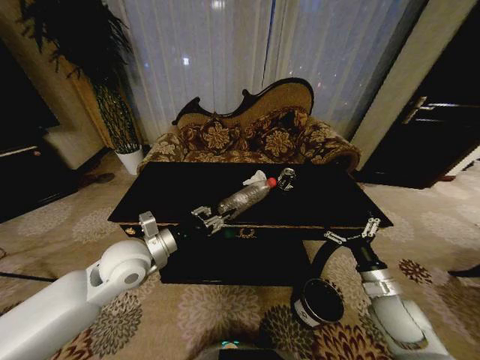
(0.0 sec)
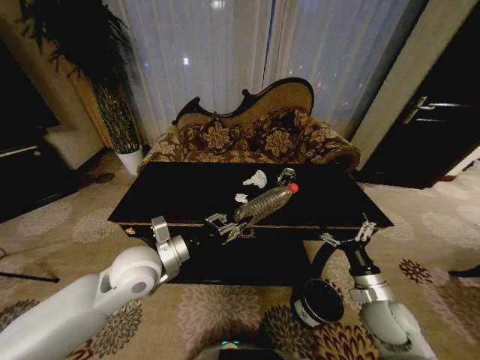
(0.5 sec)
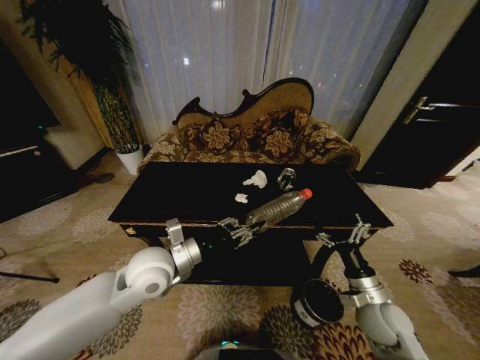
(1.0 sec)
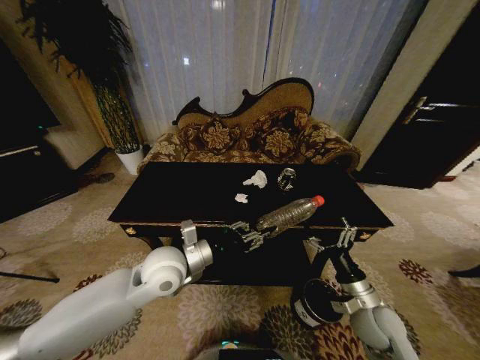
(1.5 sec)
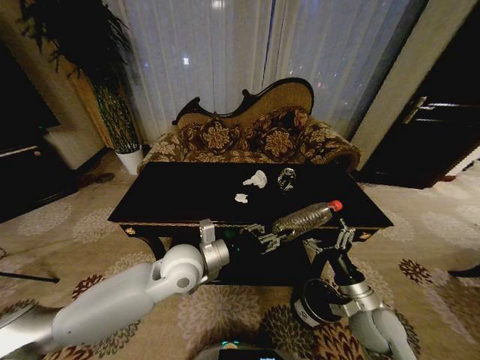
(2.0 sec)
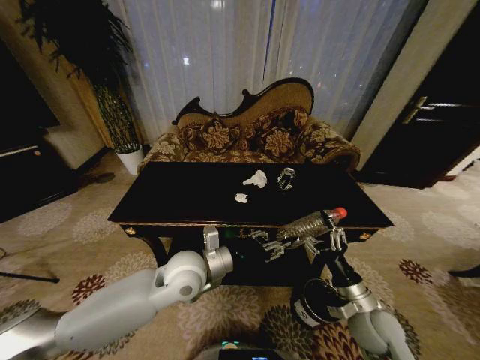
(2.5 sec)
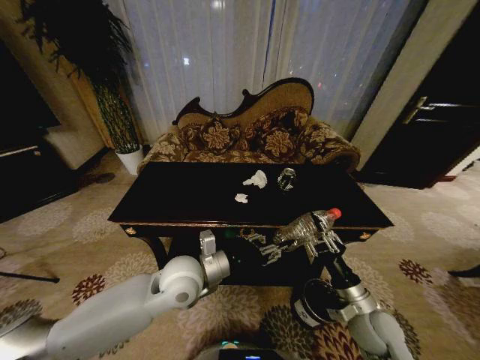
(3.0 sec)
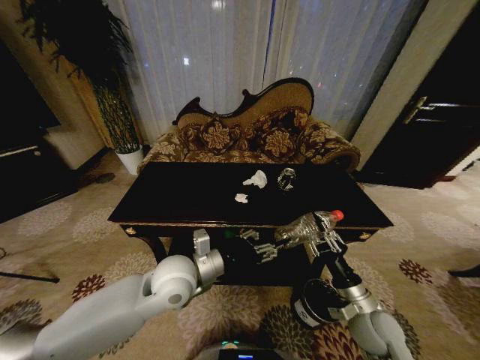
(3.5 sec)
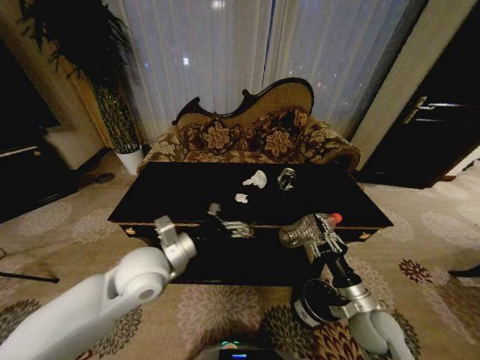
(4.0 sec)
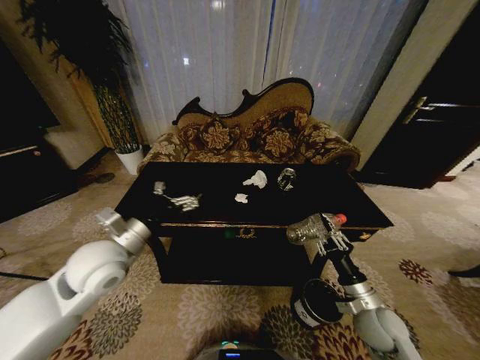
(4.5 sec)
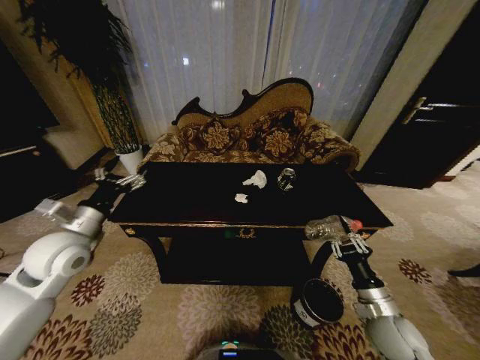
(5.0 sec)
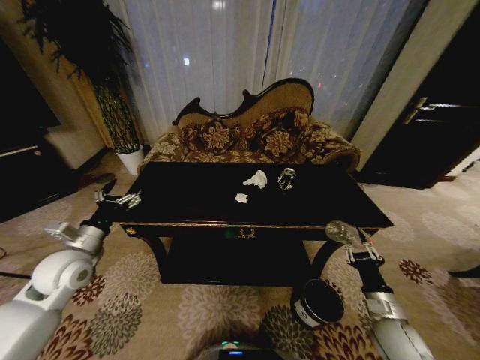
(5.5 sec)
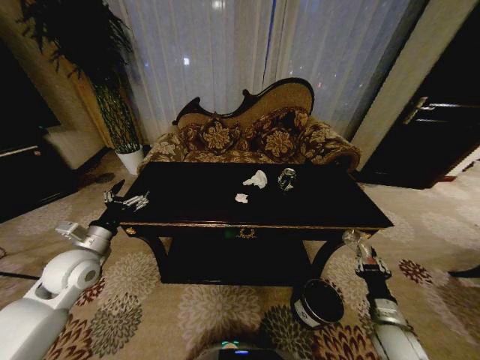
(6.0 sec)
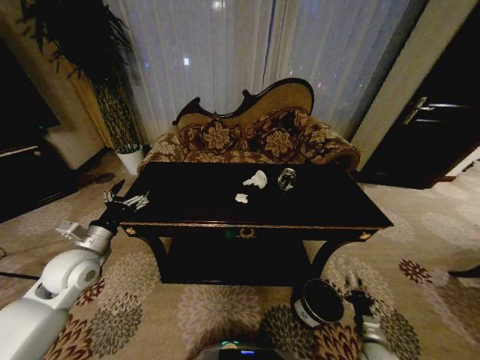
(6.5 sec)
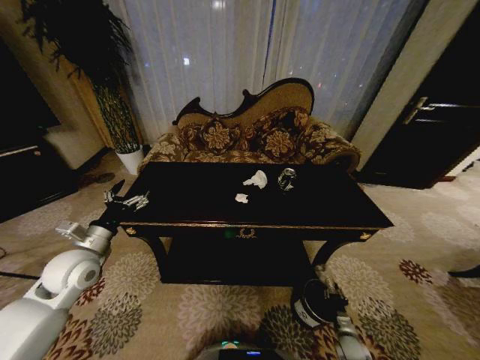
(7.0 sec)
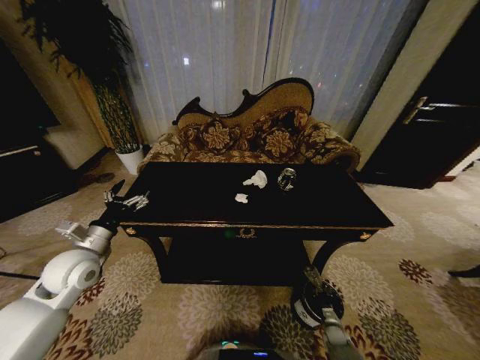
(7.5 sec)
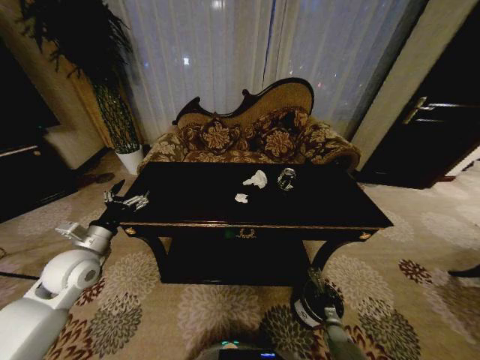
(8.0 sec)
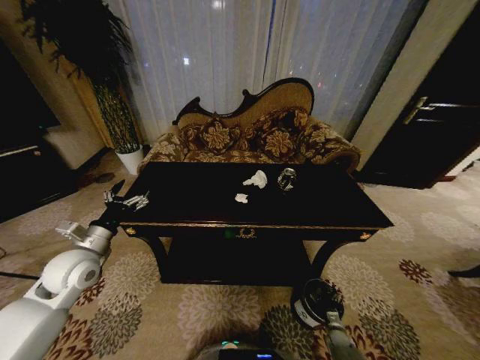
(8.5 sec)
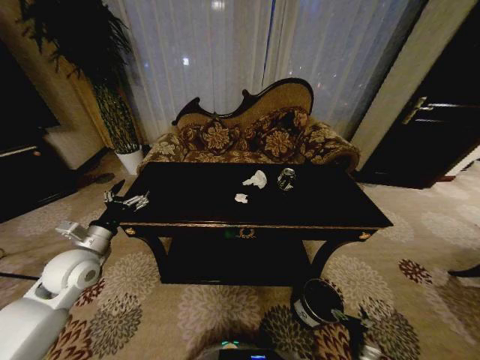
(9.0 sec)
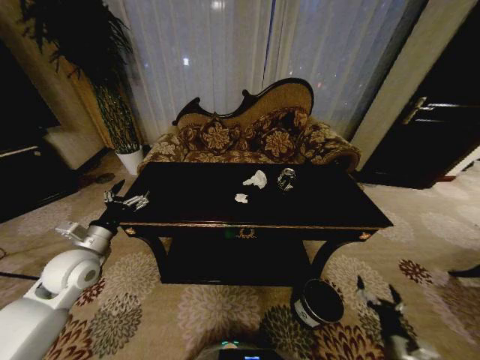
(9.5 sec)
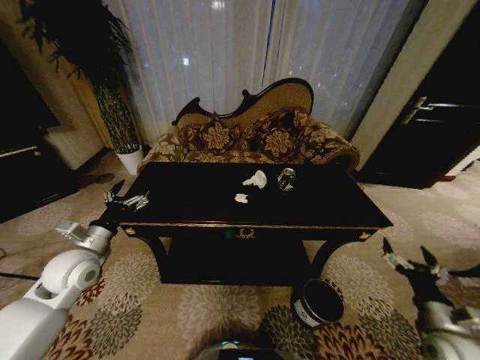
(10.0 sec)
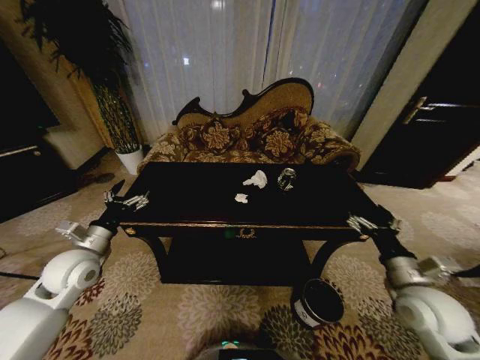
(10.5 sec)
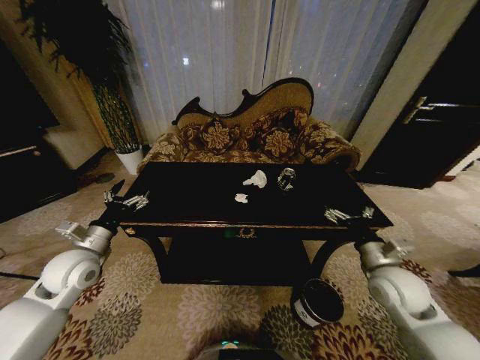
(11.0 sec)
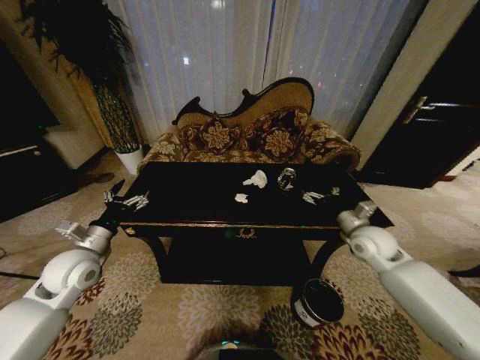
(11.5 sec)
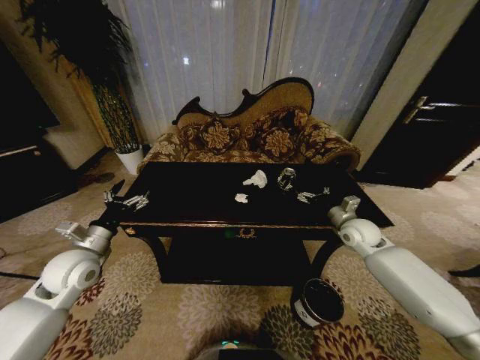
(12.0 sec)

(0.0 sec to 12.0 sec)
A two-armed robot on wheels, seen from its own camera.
Task of the whole recording: Move to the front of the table and place the trash on the table into the trash bin.
0.0 sec - 2.0 sec: The left gripper heads to the right, covering about 10 cm; the right gripper is displaced to the left by about 5 cm.
2.0 sec - 4.0 sec: The left gripper shifts approximately 5 cm to the left, and opens up. Meanwhile the right gripper closes.
4.0 sec - 6.0 sec: The left gripper moves to the left, approximately 20 cm, while the right gripper shifts about 10 cm to the right and downward.
6.0 sec - 8.0 sec: The right gripper shifts some 25 cm downward.
8.0 sec - 10.0 sec: The right gripper is displaced upward by about 35 cm, and opens its fingers.
10.0 sec - 12.0 sec: The right gripper is displaced forward by roughly 30 cm.

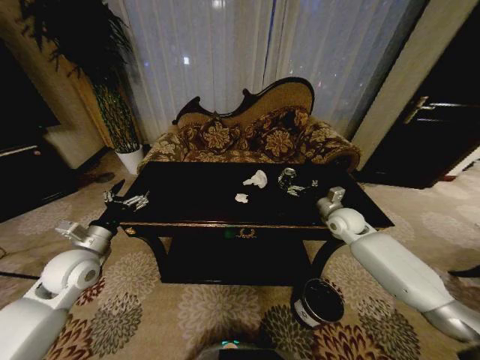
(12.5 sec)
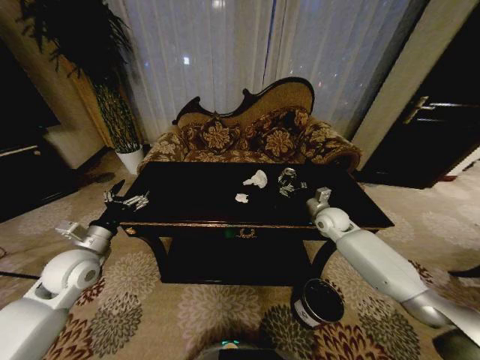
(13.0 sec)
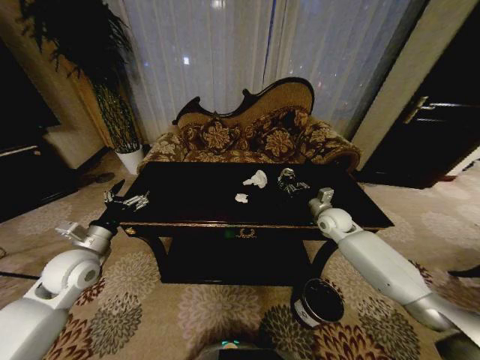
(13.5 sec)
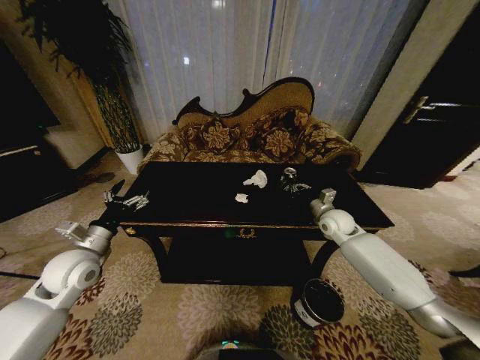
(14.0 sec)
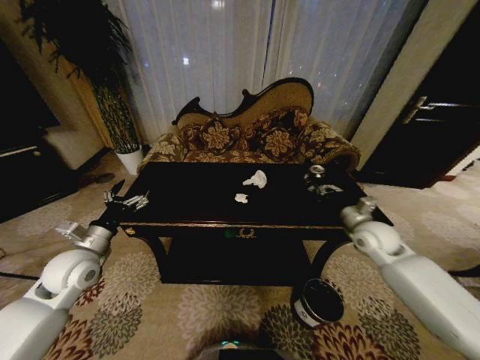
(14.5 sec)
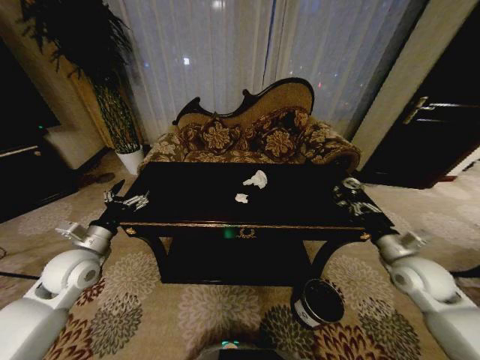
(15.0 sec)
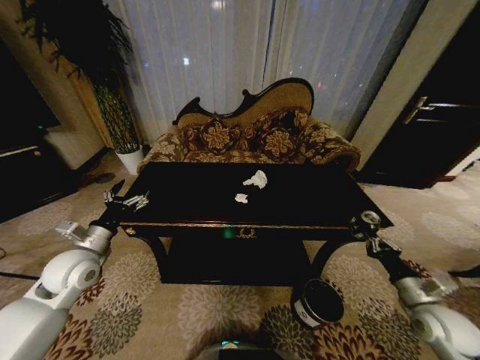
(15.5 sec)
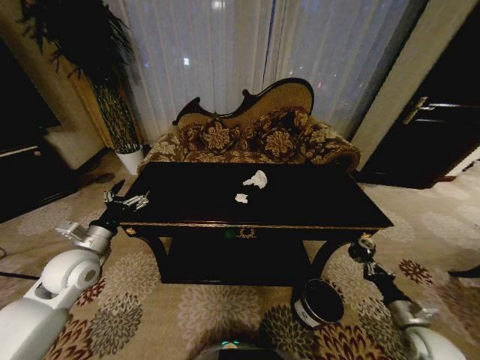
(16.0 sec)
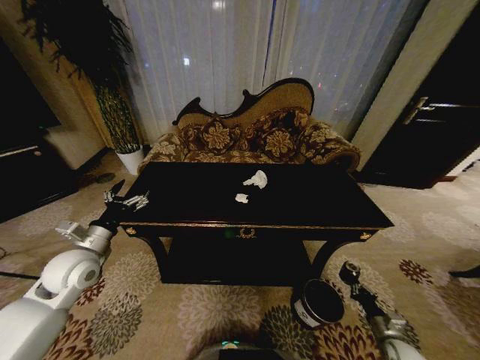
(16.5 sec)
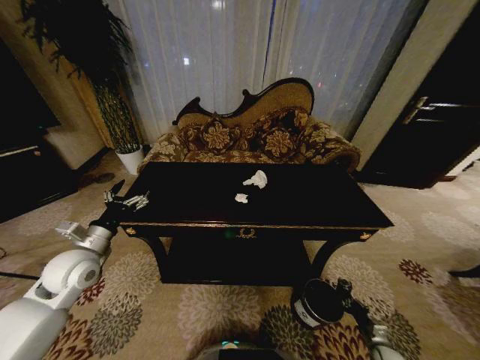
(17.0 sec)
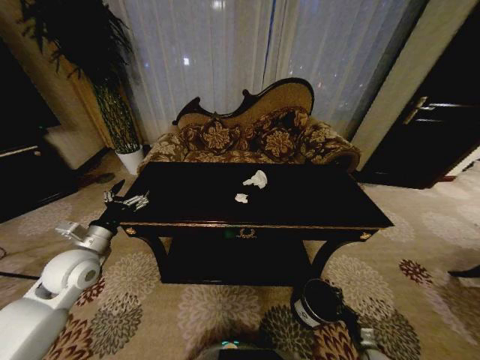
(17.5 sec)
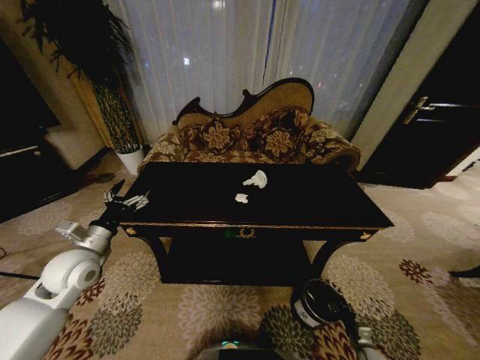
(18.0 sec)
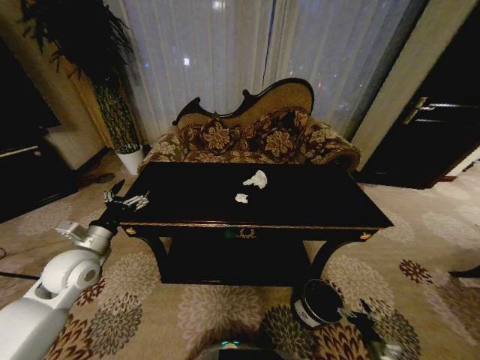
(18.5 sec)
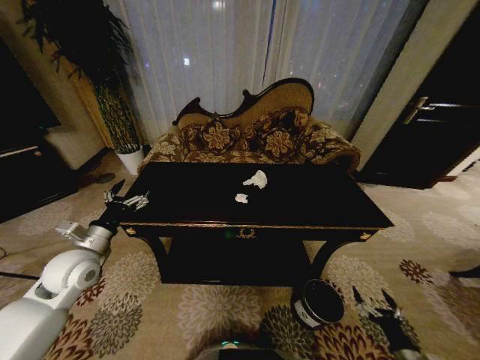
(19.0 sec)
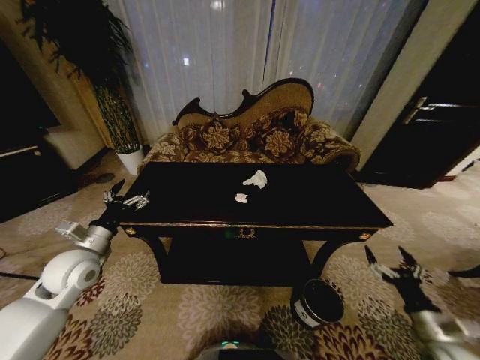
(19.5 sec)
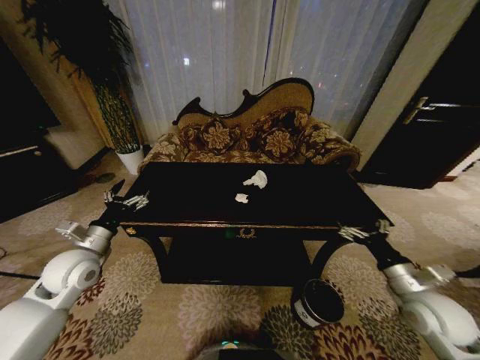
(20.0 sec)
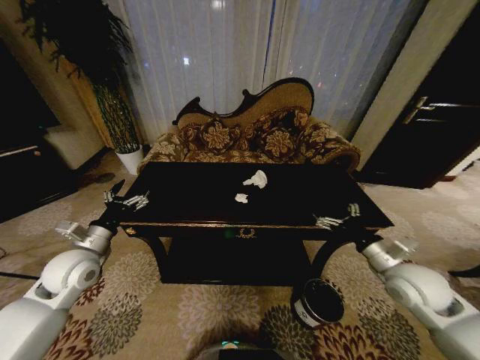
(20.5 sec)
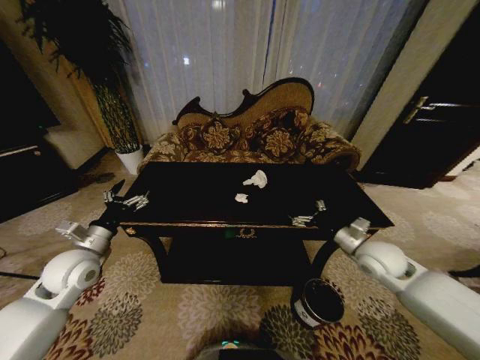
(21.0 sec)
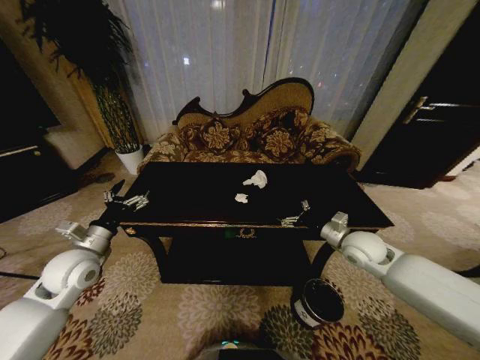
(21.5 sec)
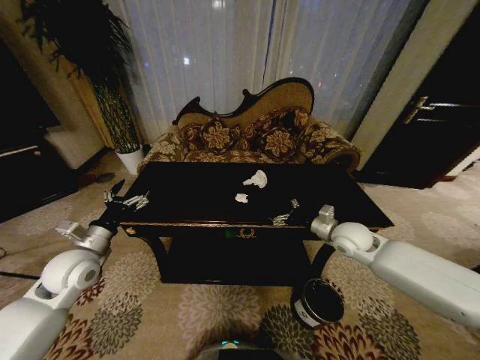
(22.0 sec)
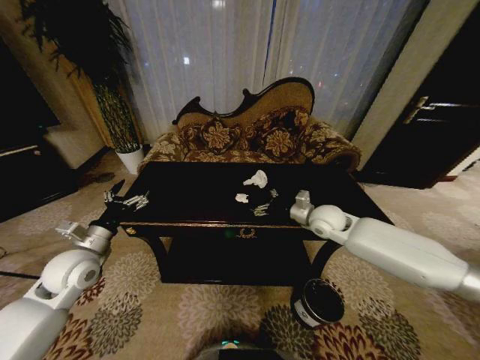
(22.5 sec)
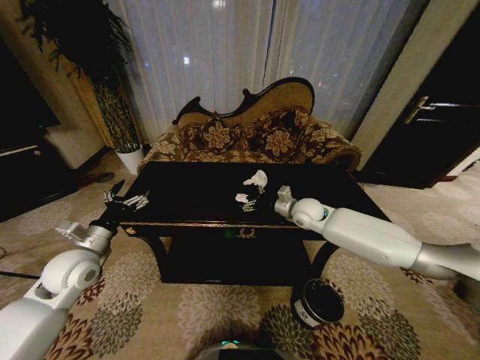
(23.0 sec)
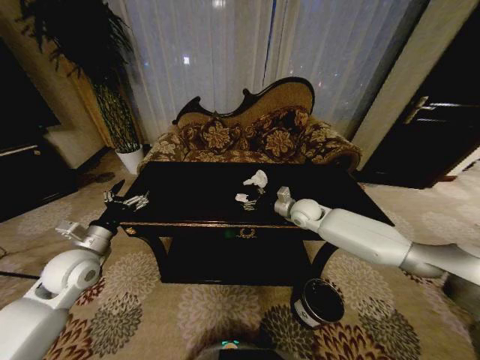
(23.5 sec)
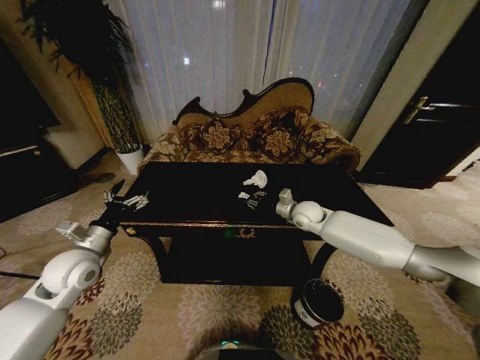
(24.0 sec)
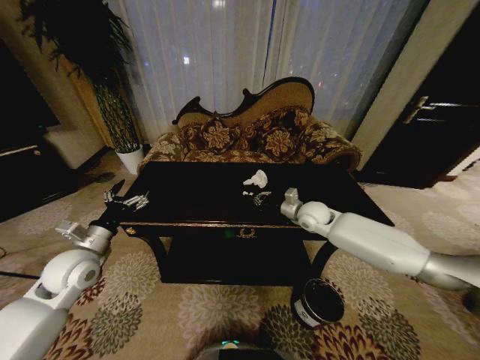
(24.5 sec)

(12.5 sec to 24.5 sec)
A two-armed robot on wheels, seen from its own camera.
Task of the whole recording: Move to the front of the table and place the trash on the table into the trash bin.
12.5 sec - 14.5 sec: The right gripper is displaced backward by approximately 10 cm, and closes its fingers.
14.5 sec - 16.5 sec: The right gripper is displaced downward and backward by roughly 35 cm.
16.5 sec - 18.5 sec: The right gripper travels downward and backward by some 10 cm, and opens up.
18.5 sec - 20.5 sec: The right gripper shifts approximately 40 cm upward and forward.
20.5 sec - 22.5 sec: The right gripper shifts roughly 20 cm forward and to the left.
22.5 sec - 24.5 sec: The right gripper closes its fingers.

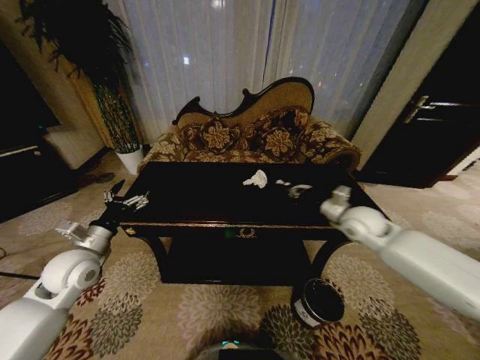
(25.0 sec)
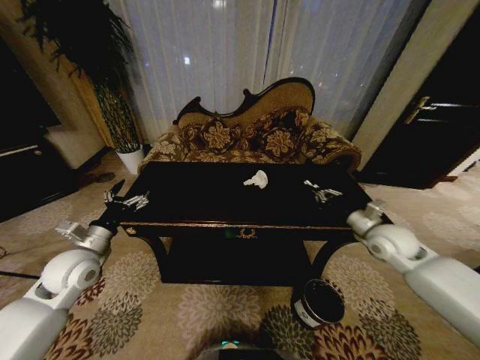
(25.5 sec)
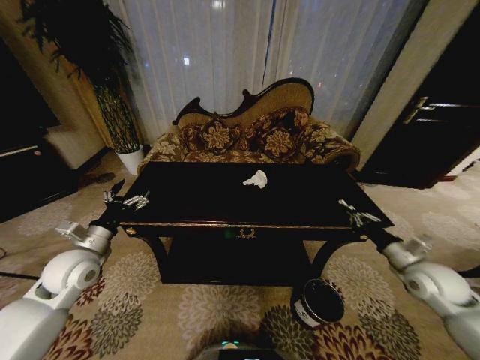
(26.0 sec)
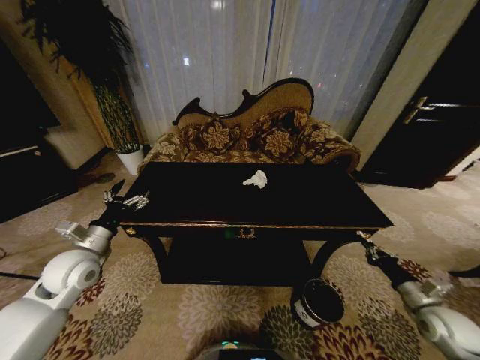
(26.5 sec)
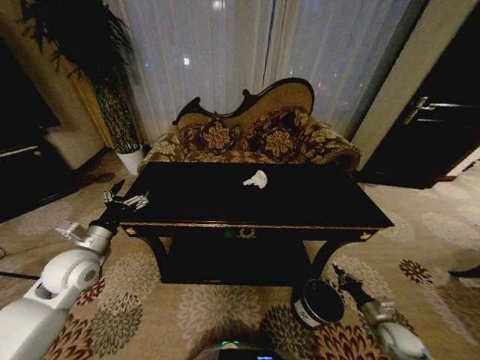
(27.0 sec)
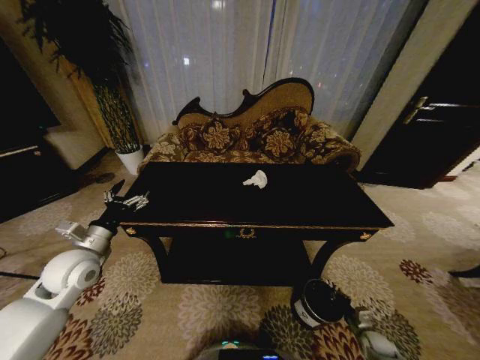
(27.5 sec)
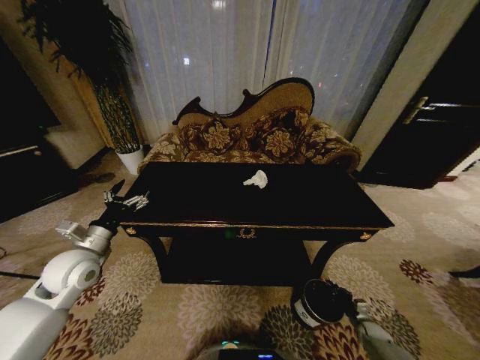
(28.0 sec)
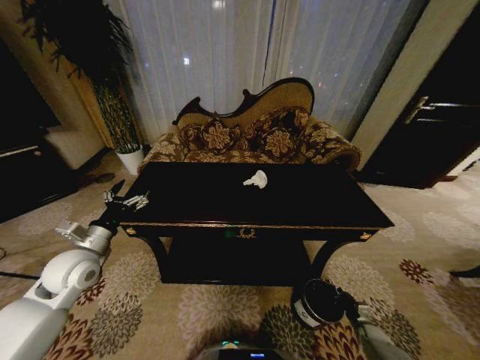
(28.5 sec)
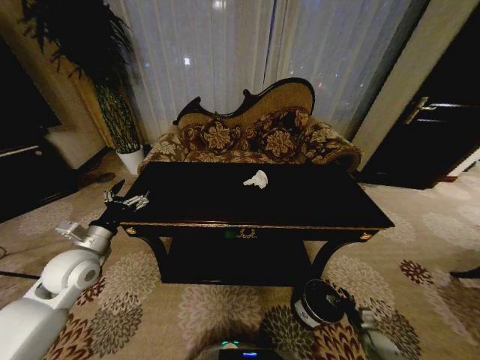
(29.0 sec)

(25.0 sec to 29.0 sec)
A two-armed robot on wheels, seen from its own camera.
Task of the whole recording: Move to the front of the table and place the trash on the table into the trash bin.
25.0 sec - 27.0 sec: The right gripper goes some 40 cm downward, backward and to the right.
27.0 sec - 29.0 sec: The right gripper heads downward, covering approximately 15 cm, and opens.
